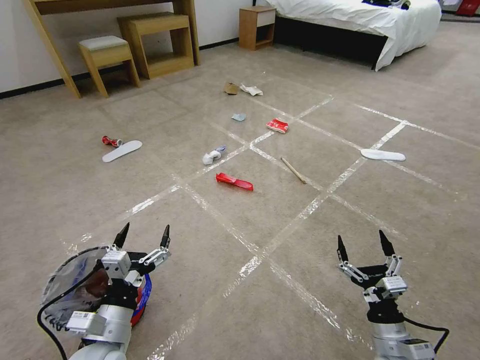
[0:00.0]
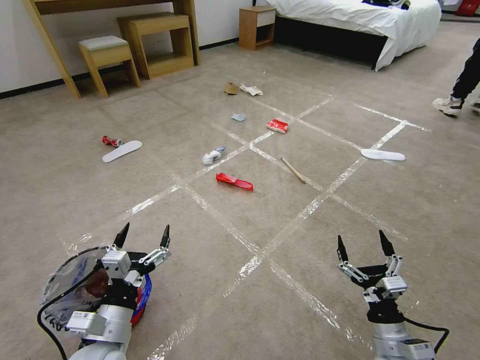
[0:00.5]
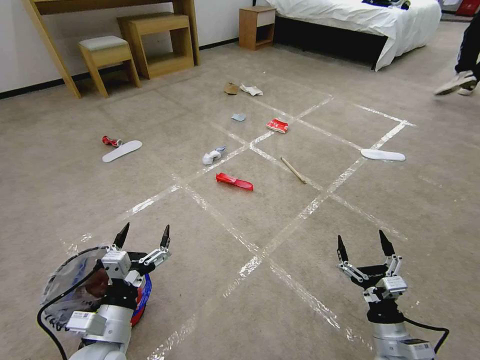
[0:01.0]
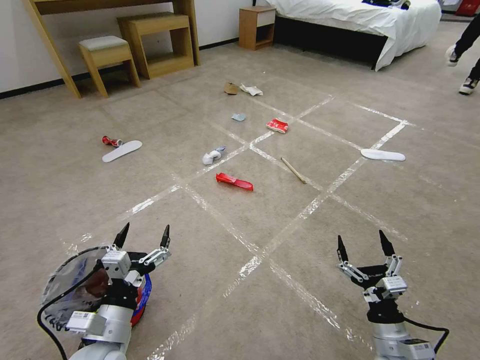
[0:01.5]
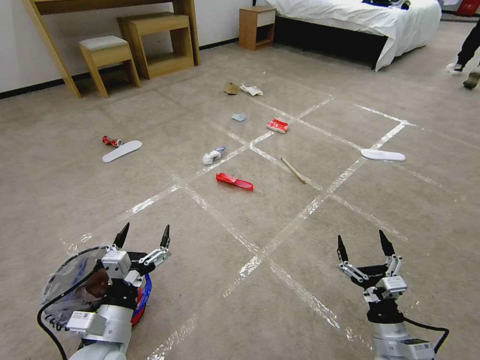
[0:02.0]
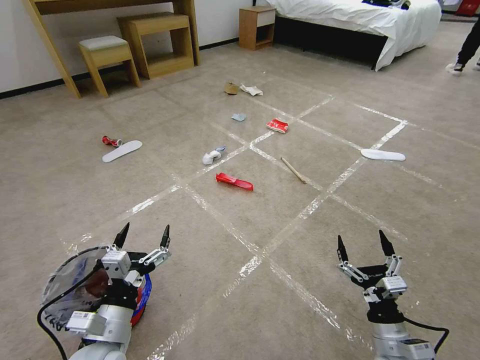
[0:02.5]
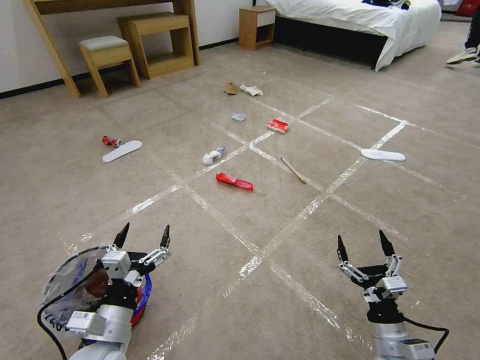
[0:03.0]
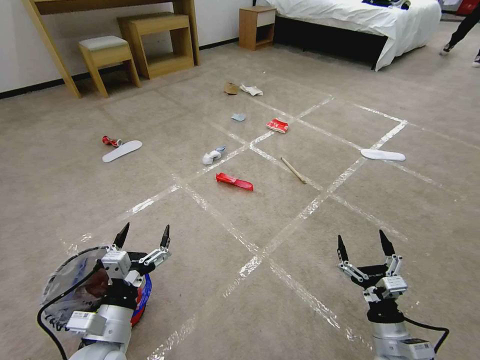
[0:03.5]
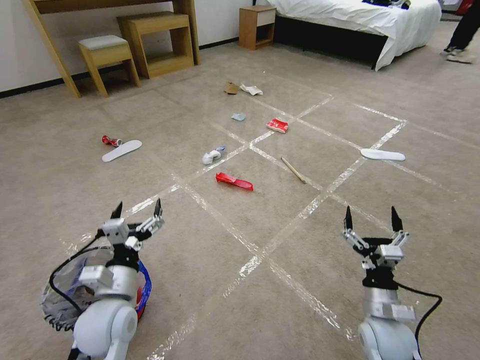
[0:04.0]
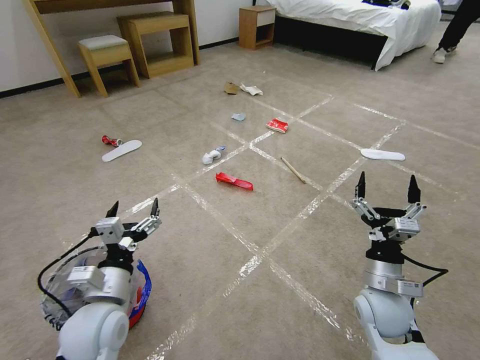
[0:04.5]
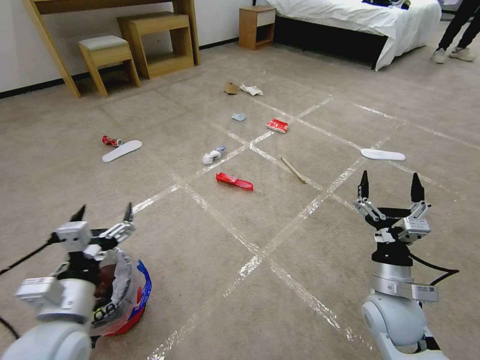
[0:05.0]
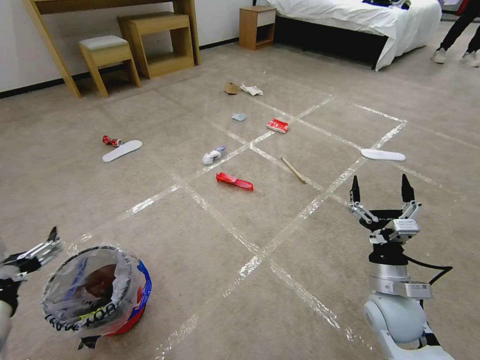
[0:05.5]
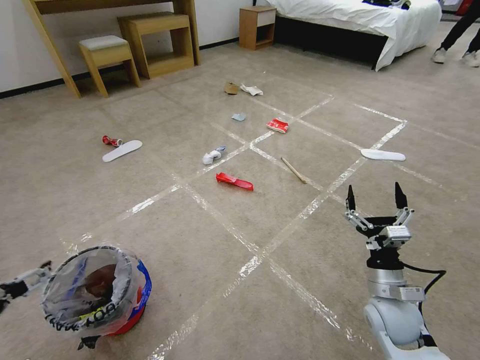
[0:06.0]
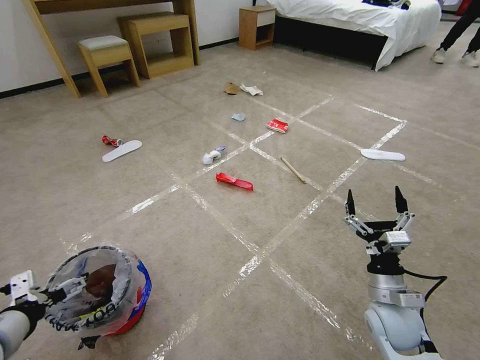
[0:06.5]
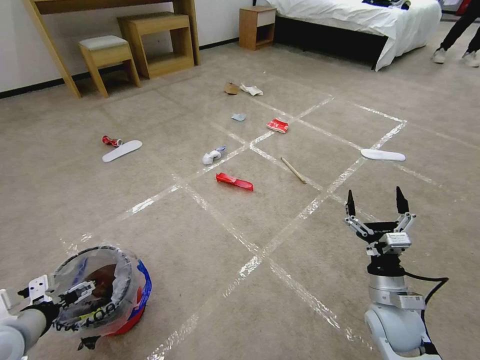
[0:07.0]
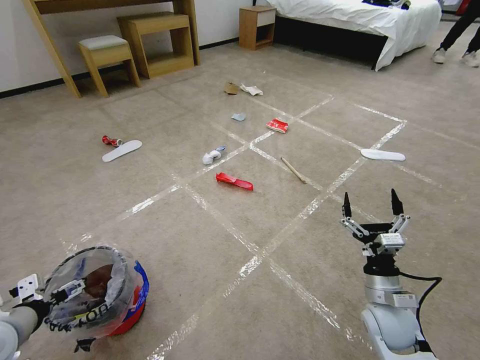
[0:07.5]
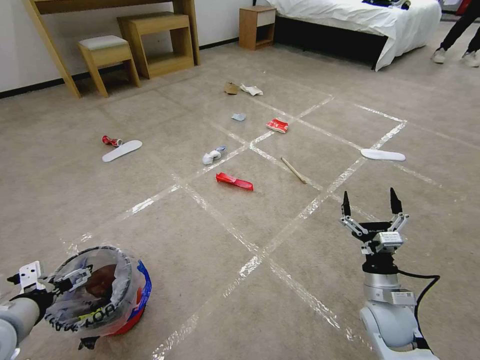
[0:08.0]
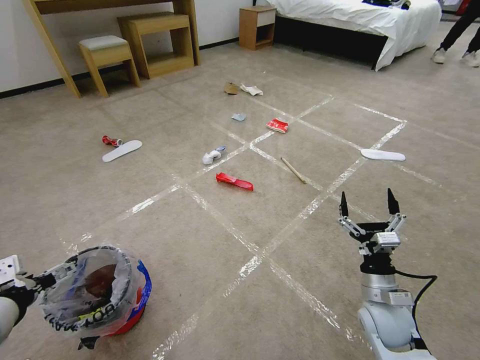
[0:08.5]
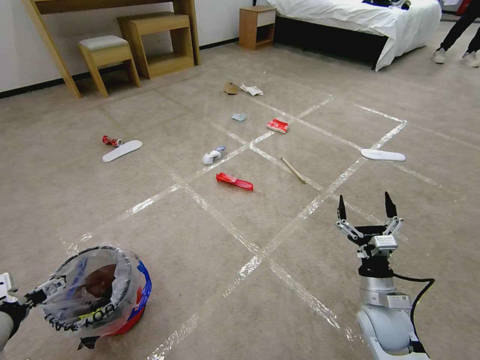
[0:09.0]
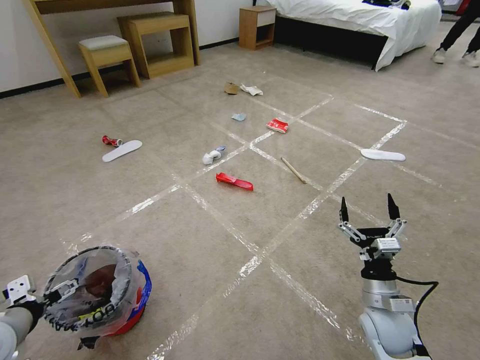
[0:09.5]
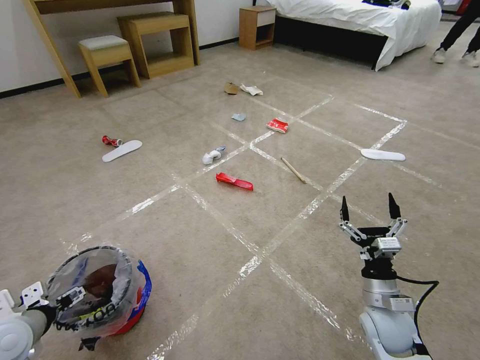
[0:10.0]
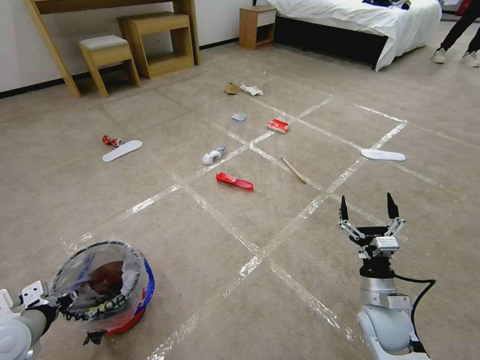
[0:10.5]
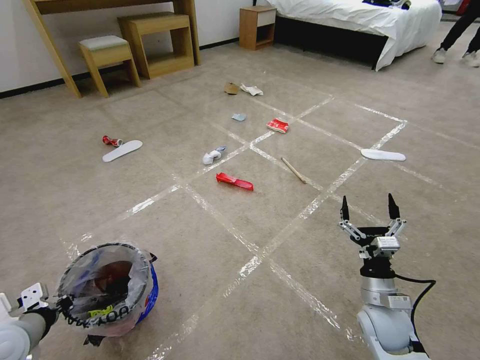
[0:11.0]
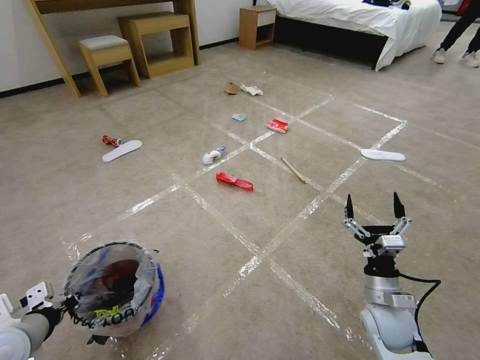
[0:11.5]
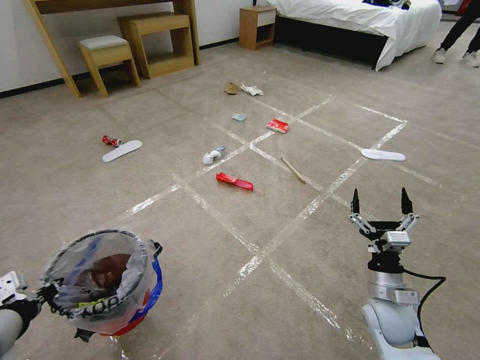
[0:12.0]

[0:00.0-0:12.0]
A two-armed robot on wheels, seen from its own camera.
Task of the whole recording: Pick up the trash bin and place the garbage on the floor into it.
0:02.0 to 0:04.0: The two grippers go roughly 5 cm forward.
0:04.0 to 0:06.0: The right gripper moves some 5 cm; the left gripper goes about 25 cm upward, to the left and backward.
0:06.0 to 0:08.0: The left gripper moves downward, approximately 5 cm.
0:08.0 to 0:10.0: The left gripper moves downward, some 5 cm.
0:10.0 to 0:12.0: The left gripper shifts approximately 10 cm upward, and closes its fingers.

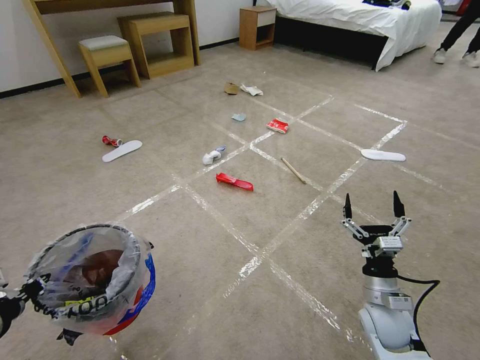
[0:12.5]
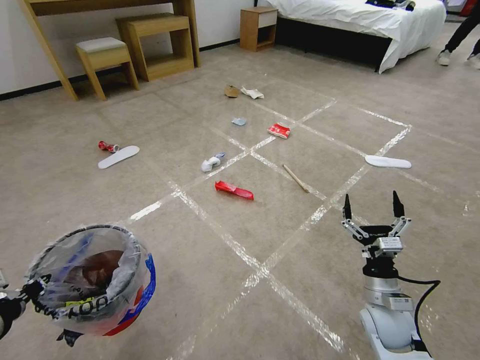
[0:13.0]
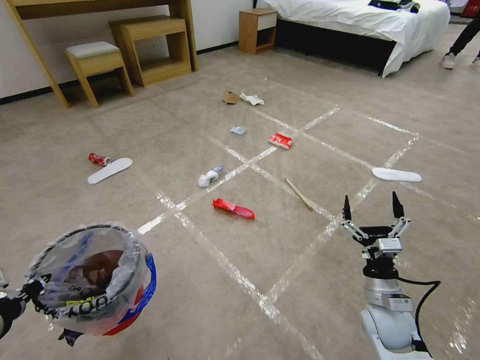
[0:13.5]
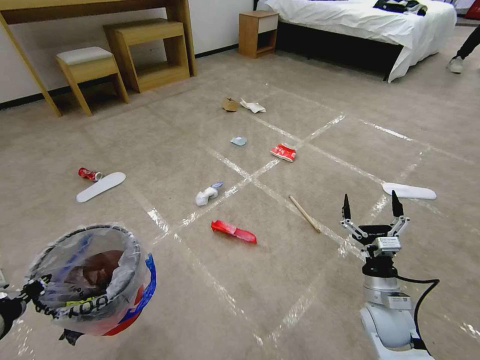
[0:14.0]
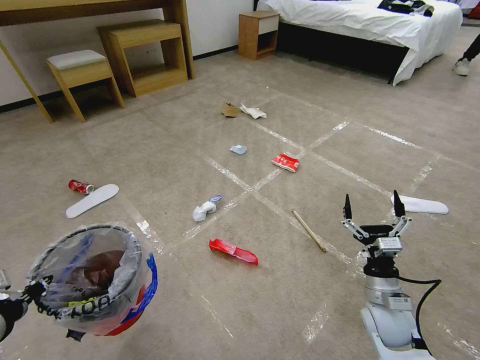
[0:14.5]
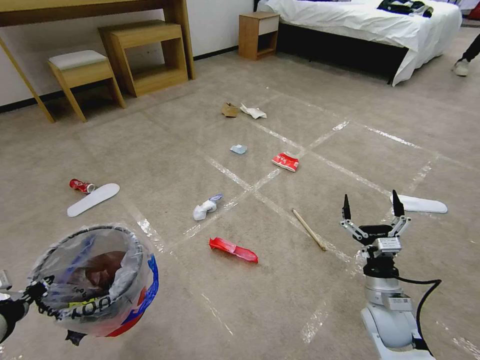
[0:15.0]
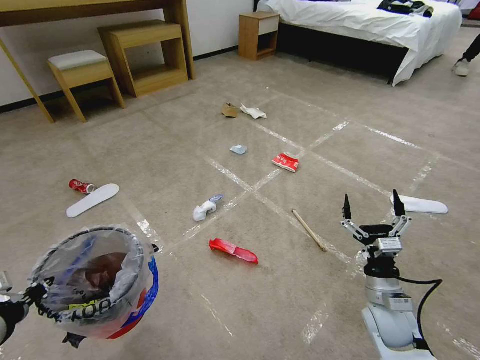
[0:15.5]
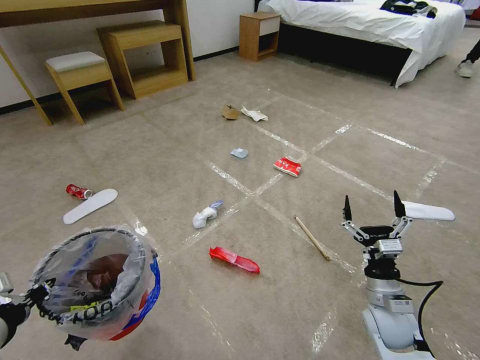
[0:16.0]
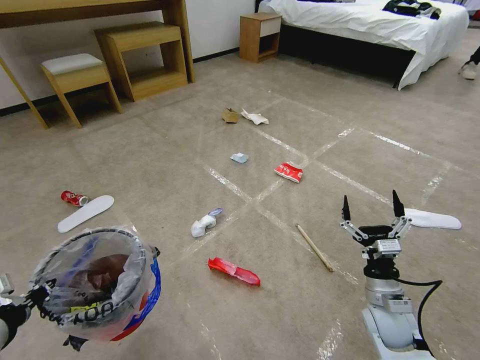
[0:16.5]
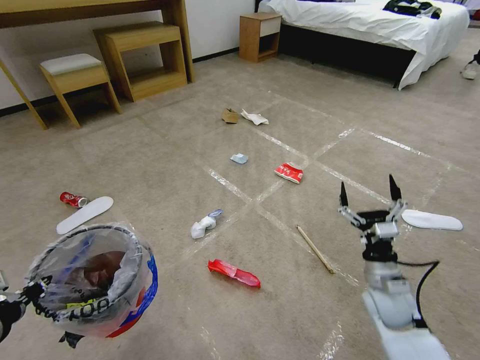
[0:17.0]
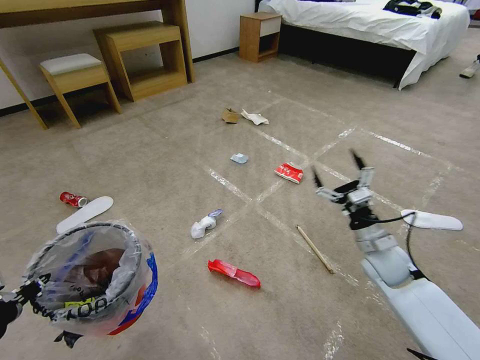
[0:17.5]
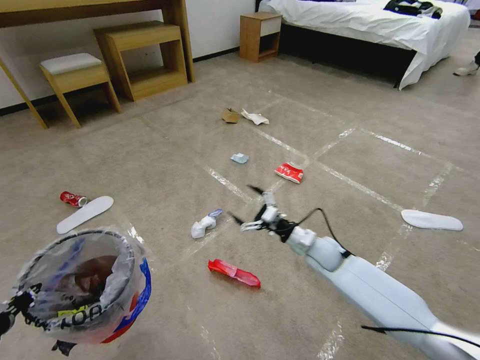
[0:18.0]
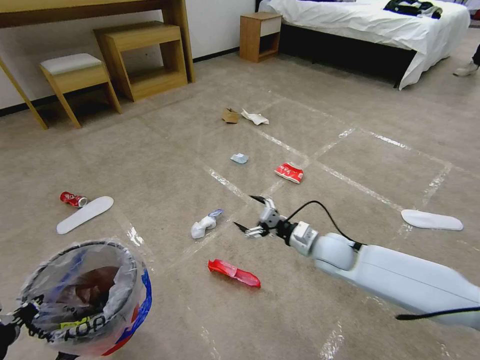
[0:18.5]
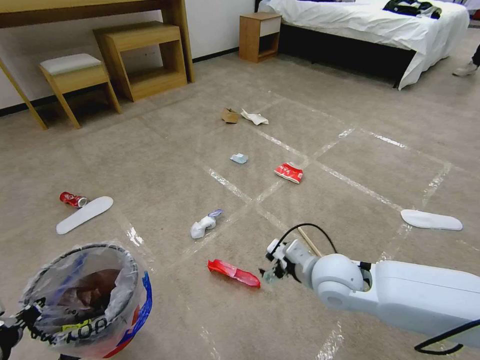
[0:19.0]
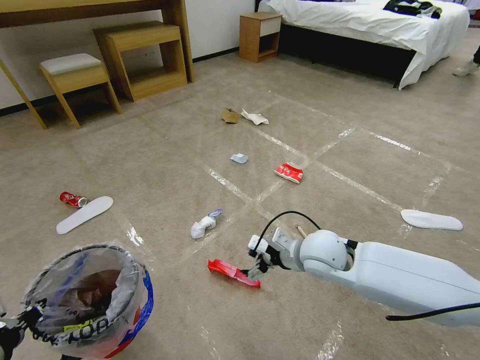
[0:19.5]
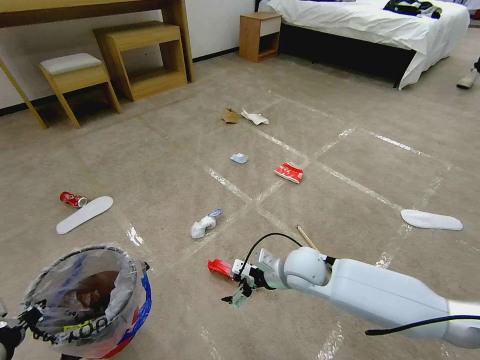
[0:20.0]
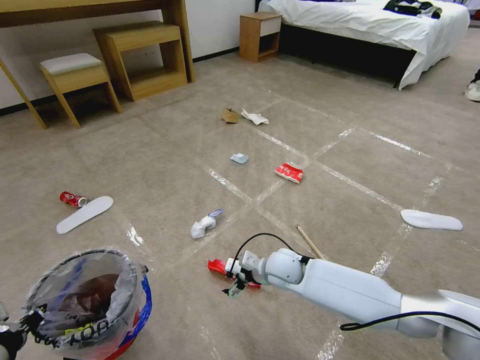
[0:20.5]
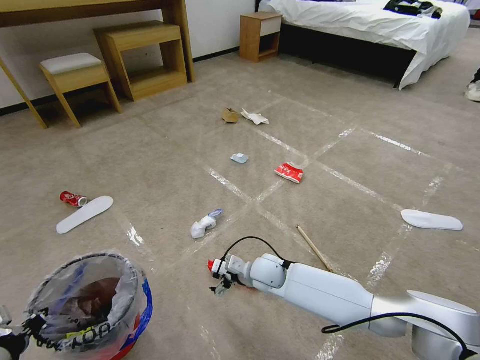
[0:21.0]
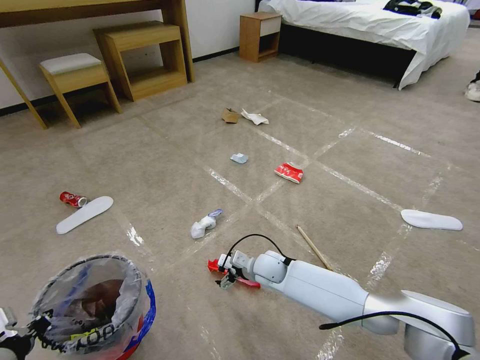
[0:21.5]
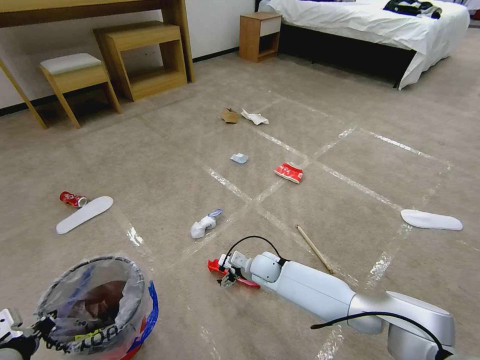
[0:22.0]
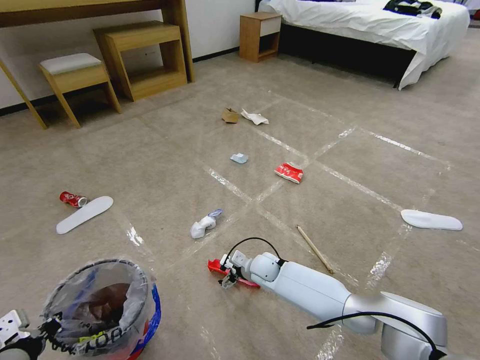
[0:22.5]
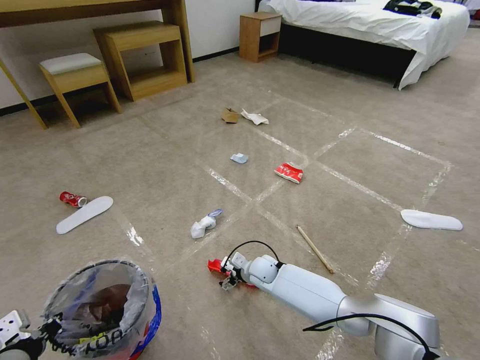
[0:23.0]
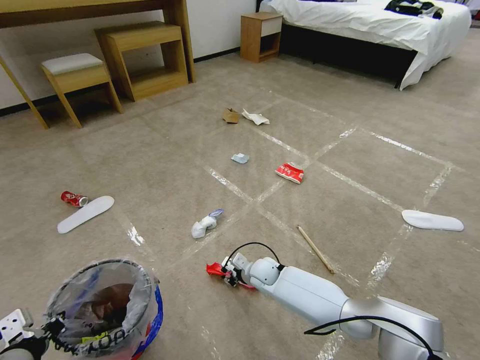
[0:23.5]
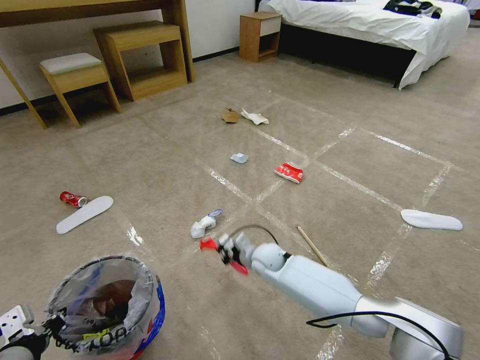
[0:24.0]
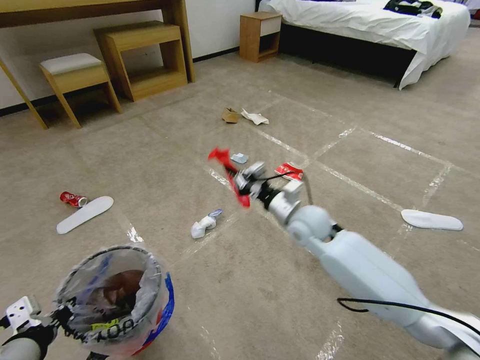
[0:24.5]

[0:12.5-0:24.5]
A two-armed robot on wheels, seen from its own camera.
Task of the whole recording: Pick up the trash bin and place the garbage on the floor into it.
0:14.5 to 0:16.5: The two grippers keep their place.
0:16.5 to 0:18.5: The right gripper goes some 15 cm forward, to the left and upward.
0:18.5 to 0:20.5: The right gripper heads to the left and downward, covering roughly 15 cm.
0:20.5 to 0:22.5: The right gripper goes roughly 10 cm downward.
0:22.5 to 0:24.5: The right gripper travels upward and to the right by some 25 cm, and closes.

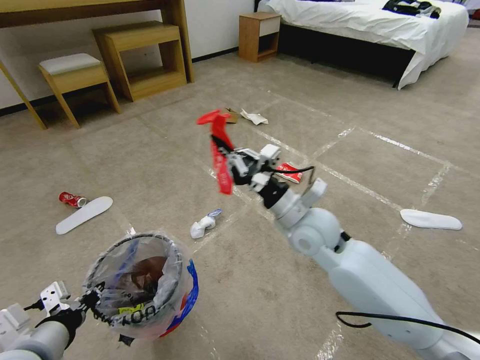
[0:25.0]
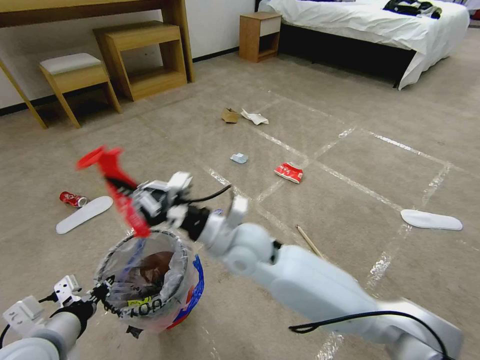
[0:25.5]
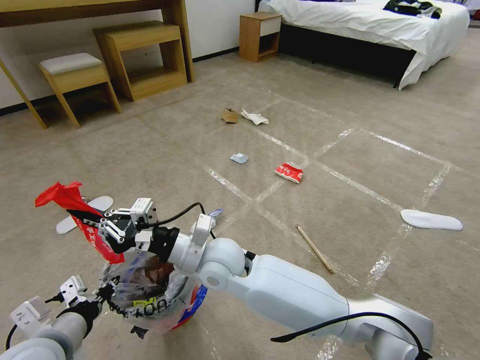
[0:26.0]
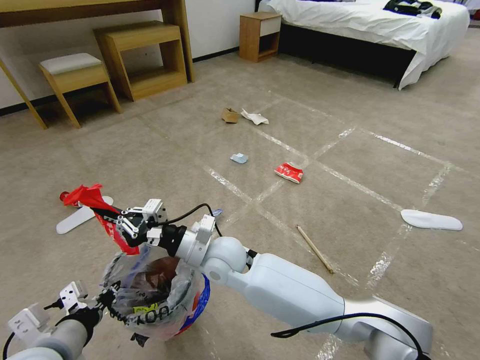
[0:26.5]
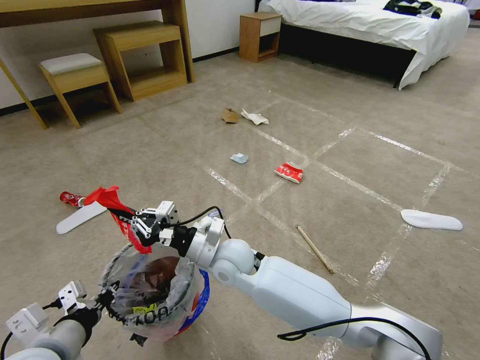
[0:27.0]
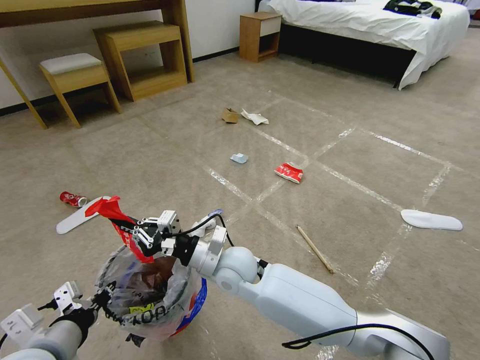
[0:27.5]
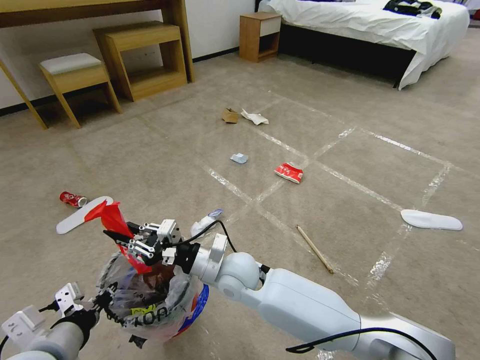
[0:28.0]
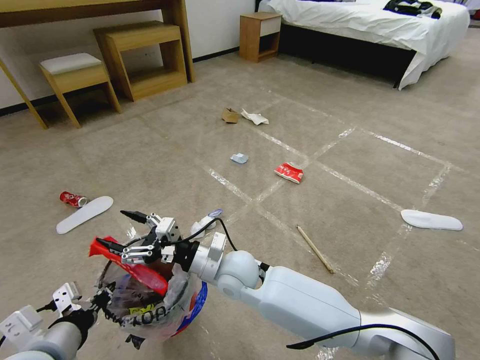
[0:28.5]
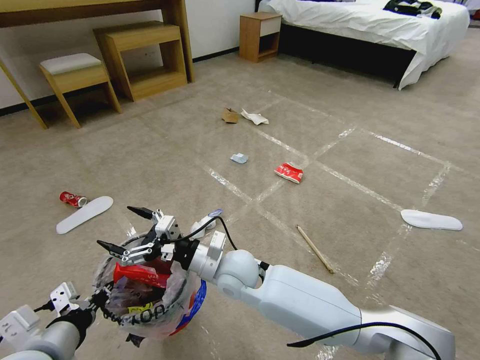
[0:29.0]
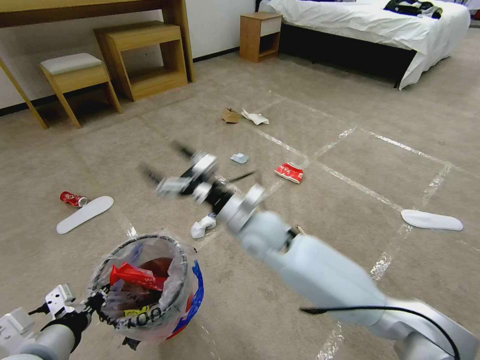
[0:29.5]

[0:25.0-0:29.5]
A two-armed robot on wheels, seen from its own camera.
Task of the whole recording: Pick up the trash bin and place the garbage on the floor into it.
0:25.0 to 0:27.0: The right gripper is displaced to the left and downward by some 20 cm.
0:27.0 to 0:29.5: The right gripper travels to the right and upward by roughly 10 cm, and opens.
